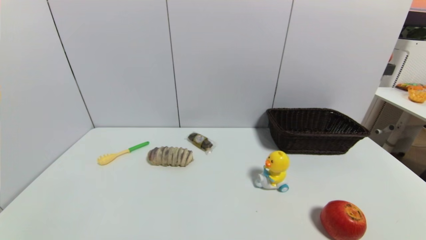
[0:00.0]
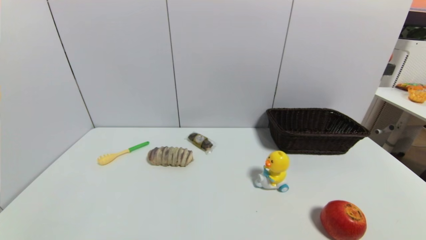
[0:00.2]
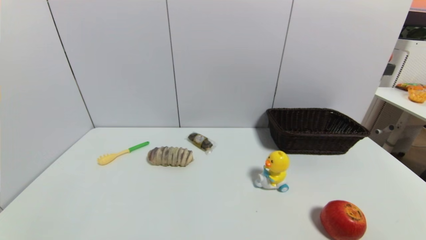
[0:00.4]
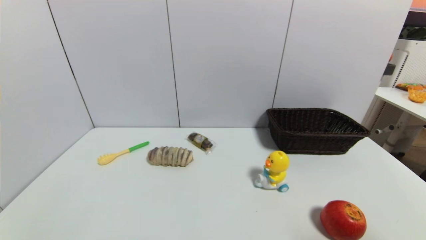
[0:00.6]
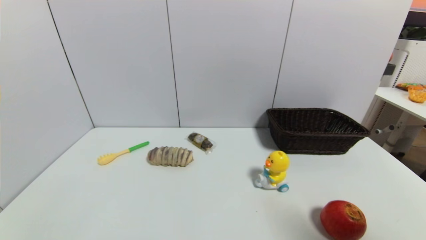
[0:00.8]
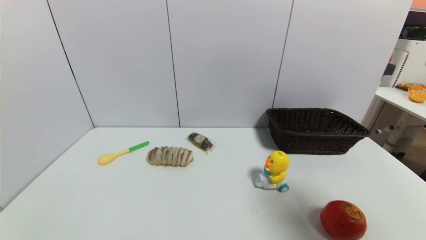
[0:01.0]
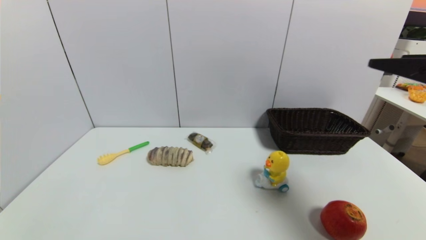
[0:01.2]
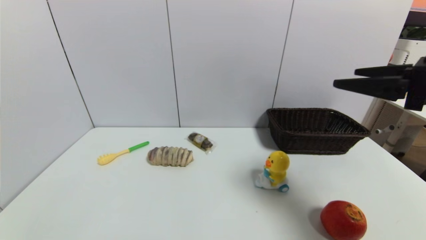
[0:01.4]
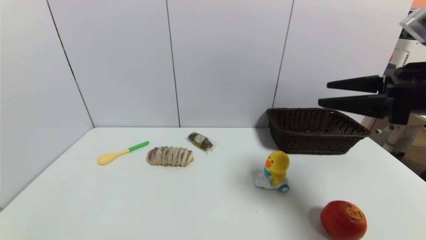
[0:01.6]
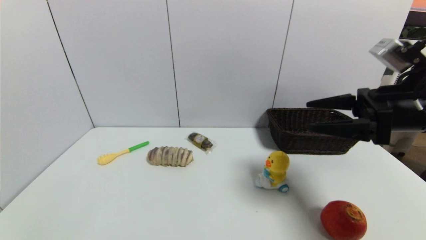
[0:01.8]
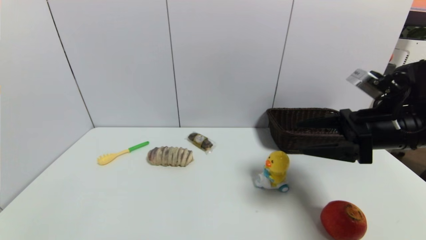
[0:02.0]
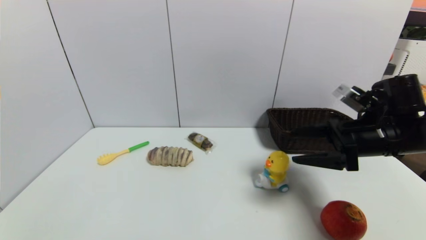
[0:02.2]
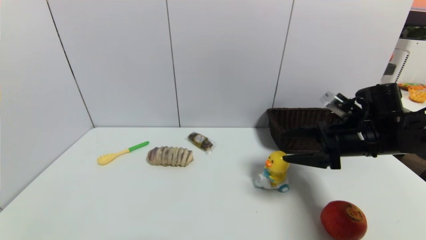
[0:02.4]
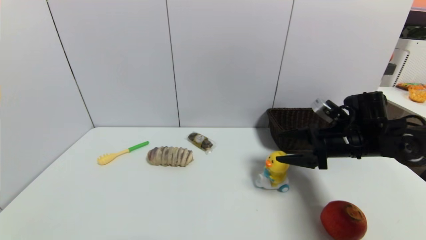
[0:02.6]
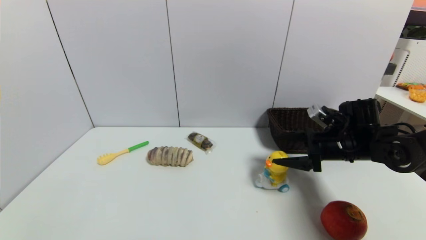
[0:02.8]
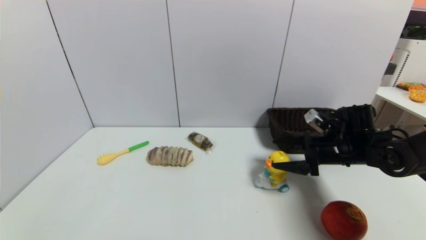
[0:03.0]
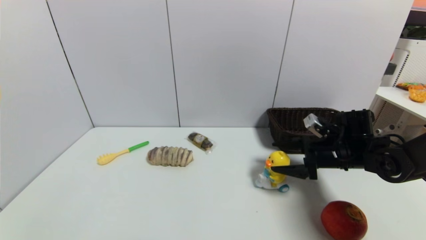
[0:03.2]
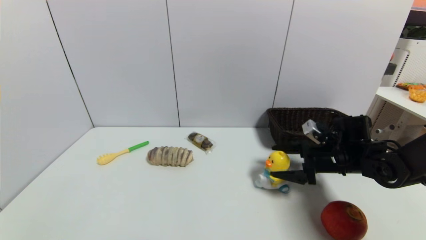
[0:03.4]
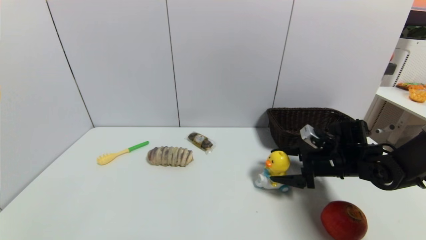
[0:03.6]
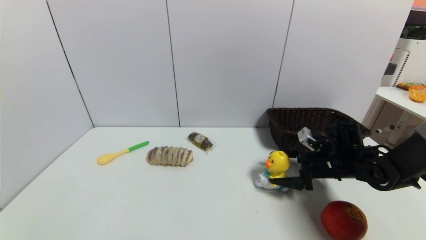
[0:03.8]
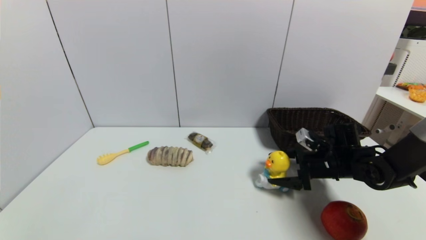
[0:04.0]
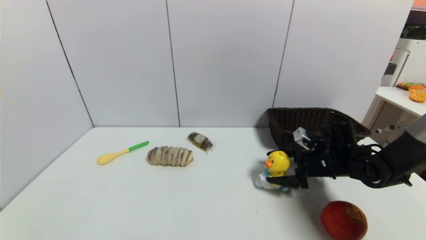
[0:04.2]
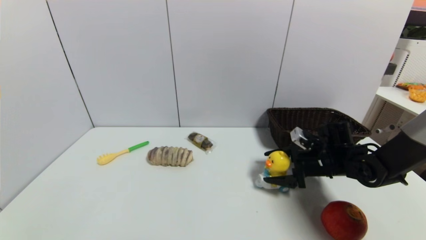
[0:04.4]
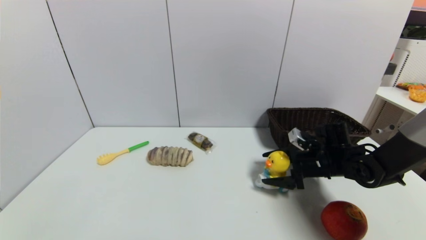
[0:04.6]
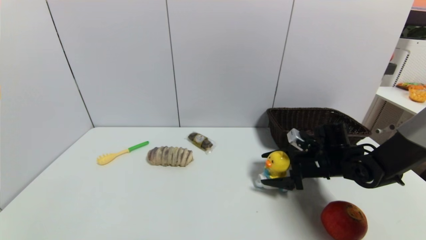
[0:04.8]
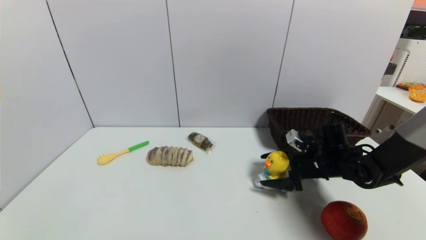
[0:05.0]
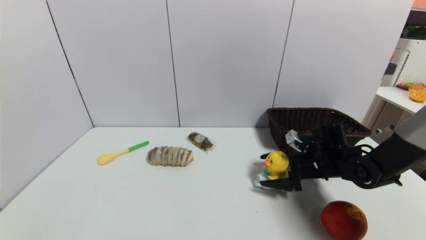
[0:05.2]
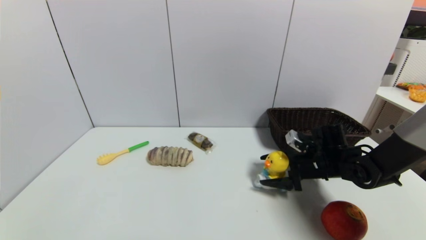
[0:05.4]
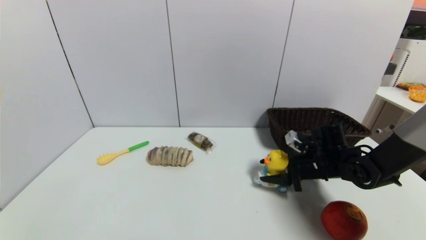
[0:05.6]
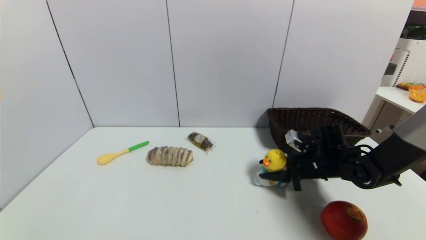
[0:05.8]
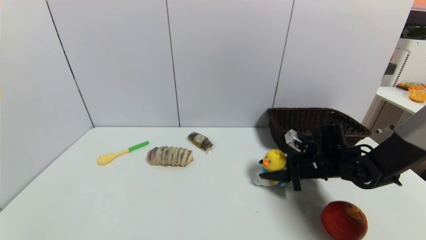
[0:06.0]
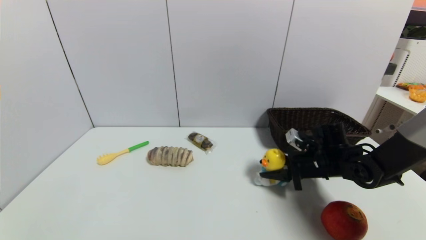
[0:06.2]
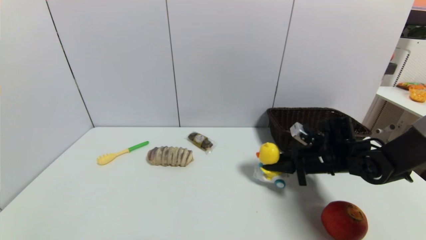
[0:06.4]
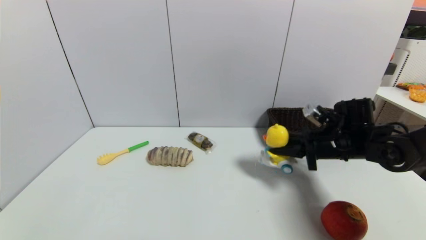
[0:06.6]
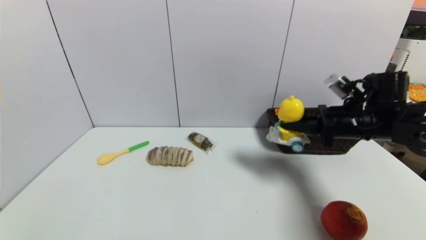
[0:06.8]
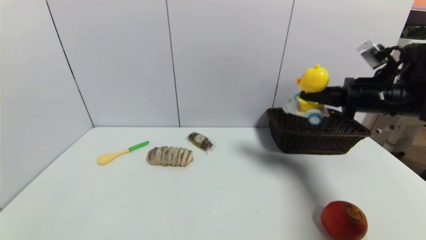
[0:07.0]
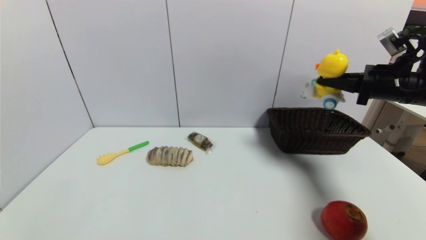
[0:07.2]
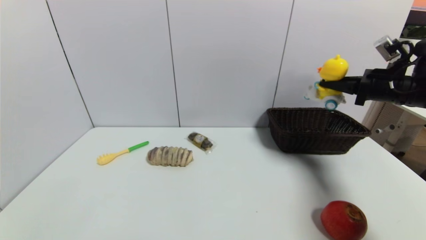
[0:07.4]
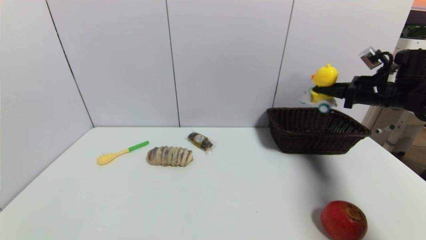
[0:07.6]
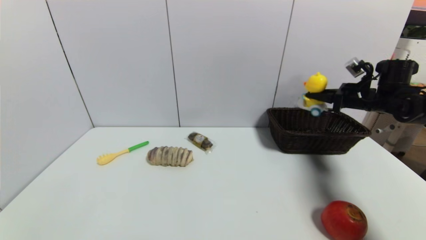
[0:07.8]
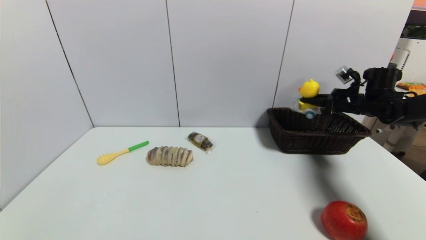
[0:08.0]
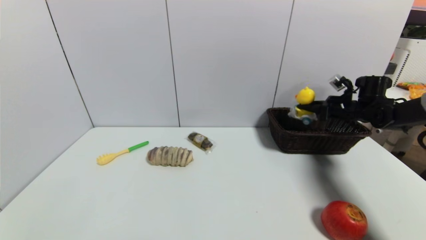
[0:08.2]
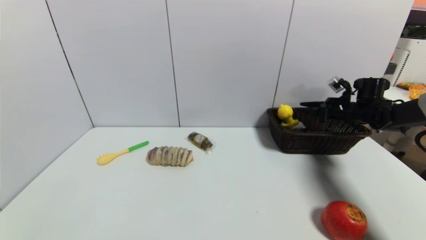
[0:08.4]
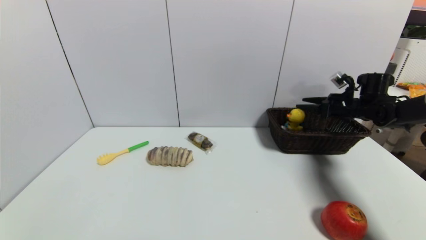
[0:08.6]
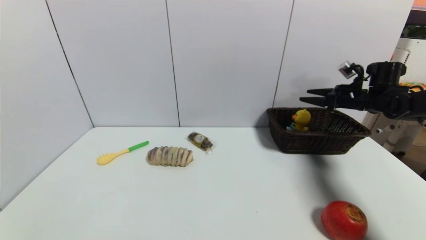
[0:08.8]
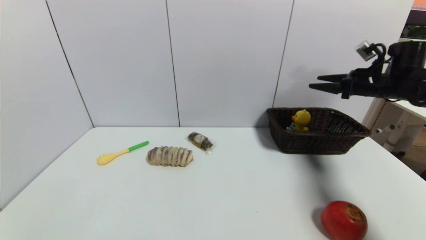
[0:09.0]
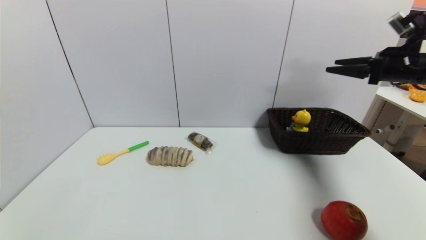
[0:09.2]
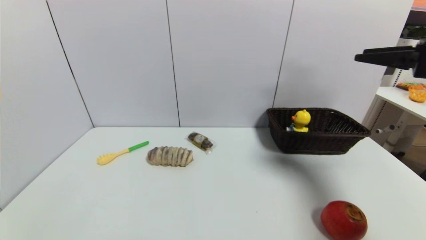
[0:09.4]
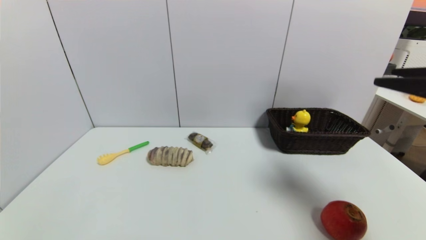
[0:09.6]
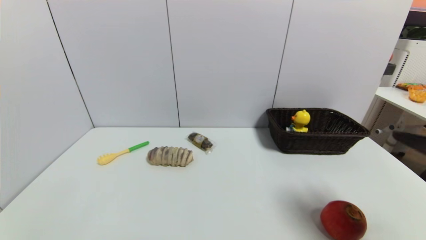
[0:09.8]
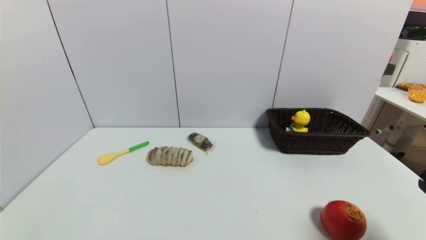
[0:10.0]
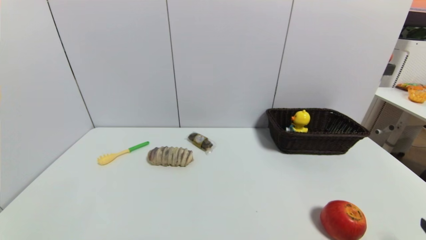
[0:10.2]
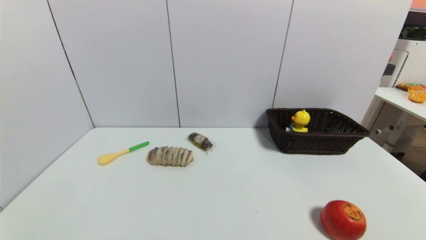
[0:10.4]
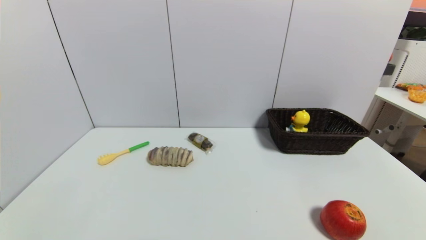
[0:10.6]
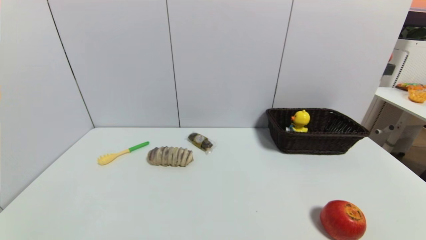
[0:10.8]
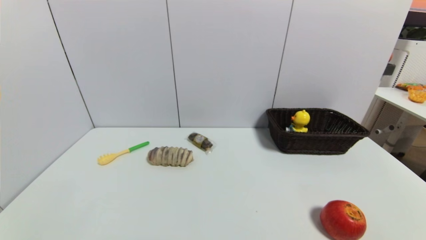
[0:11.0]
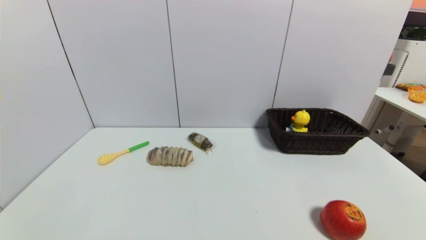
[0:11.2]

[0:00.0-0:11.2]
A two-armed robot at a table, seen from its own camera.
Task of the whole recording: use a gripper to pick the target object and place on the brown basket.
Step, 0:00.0 to 0:05.8: Grasp the duck toy with the right gripper.
Step, 0:06.0 to 0:08.8: Place the duck toy into the basket with the right gripper.
0:00.0 to 0:01.6: The right gripper moves forward and upward, approximately 30 cm.
0:01.6 to 0:03.2: The right gripper goes approximately 20 cm downward and forward.
0:03.2 to 0:04.8: The grippers stay close to where they were, moving slightly.
0:04.8 to 0:06.4: The right gripper closes up.
0:06.4 to 0:08.0: The right gripper is displaced to the right, forward and upward by about 20 cm.
0:08.0 to 0:09.6: The right gripper heads backward and upward, covering some 30 cm, and opens its fingers.
0:09.6 to 0:11.2: The right gripper is displaced downward and backward by about 30 cm.
